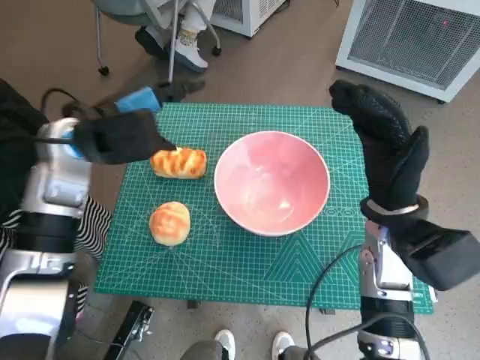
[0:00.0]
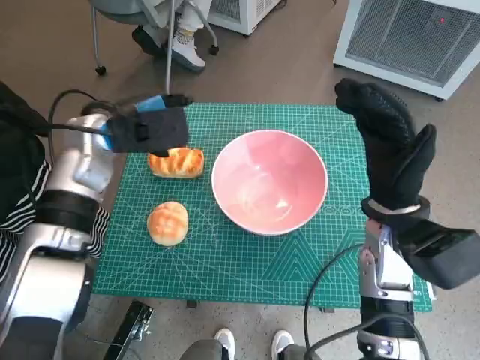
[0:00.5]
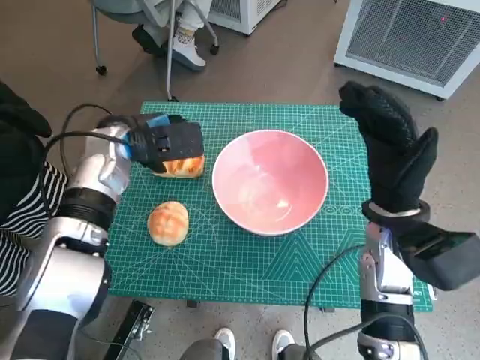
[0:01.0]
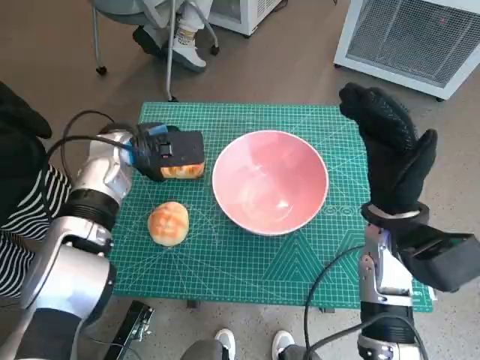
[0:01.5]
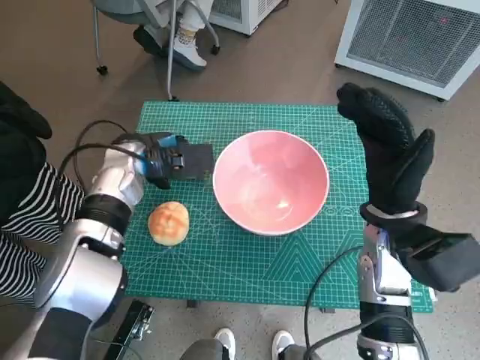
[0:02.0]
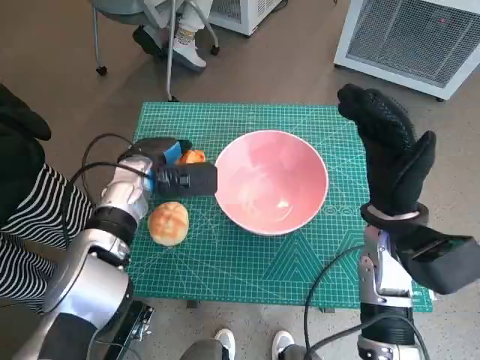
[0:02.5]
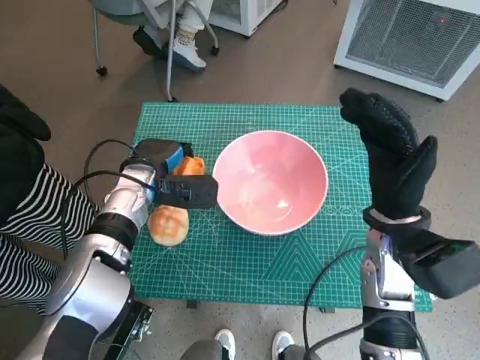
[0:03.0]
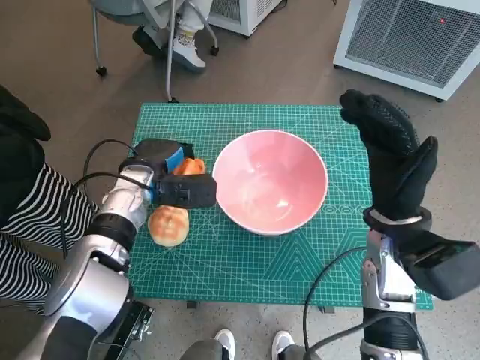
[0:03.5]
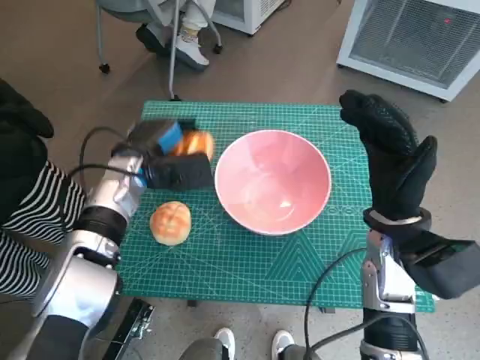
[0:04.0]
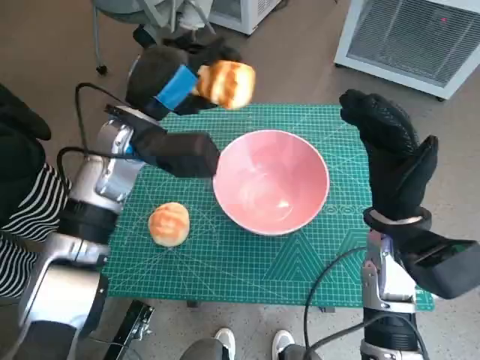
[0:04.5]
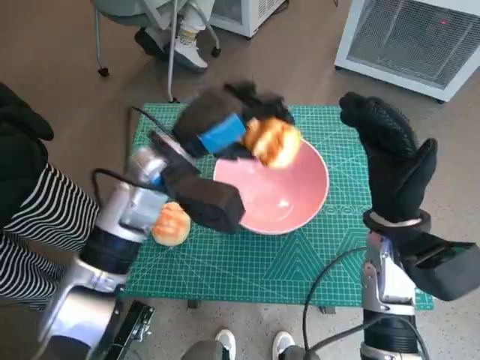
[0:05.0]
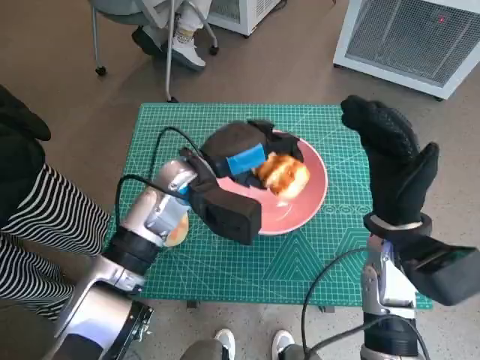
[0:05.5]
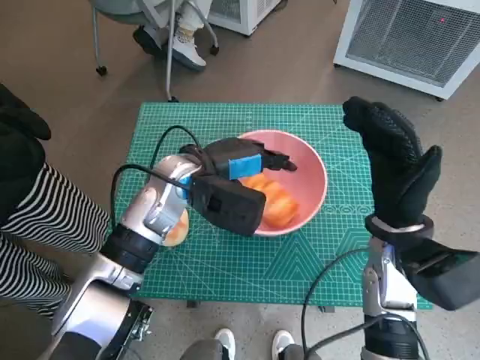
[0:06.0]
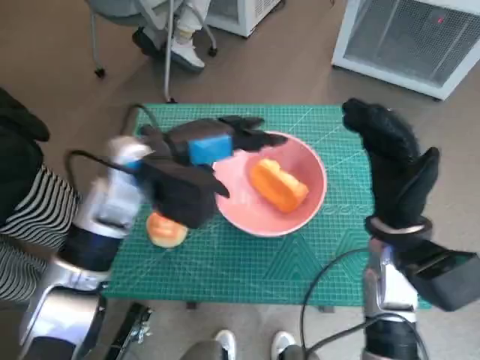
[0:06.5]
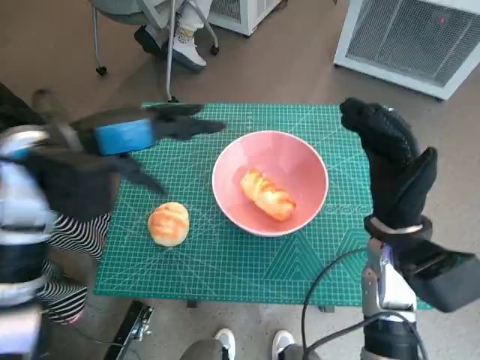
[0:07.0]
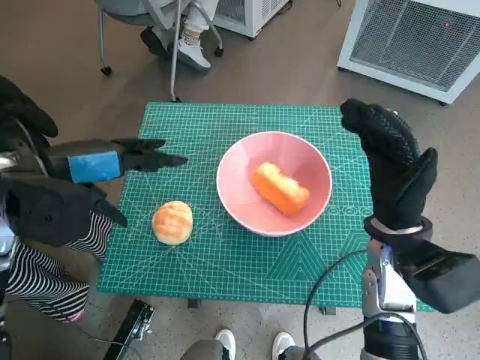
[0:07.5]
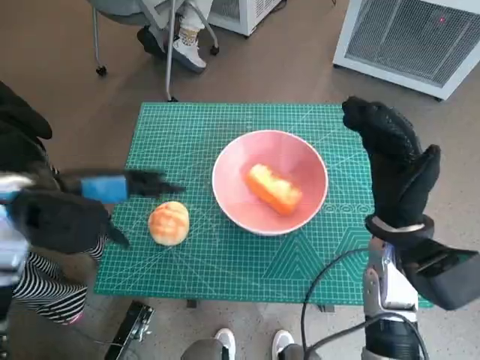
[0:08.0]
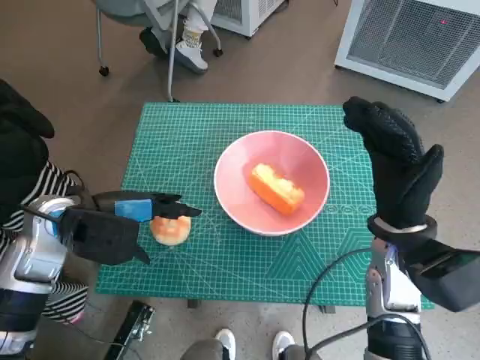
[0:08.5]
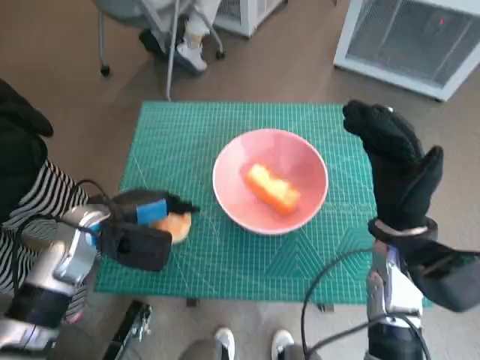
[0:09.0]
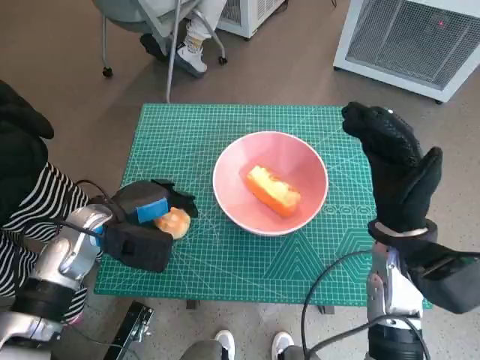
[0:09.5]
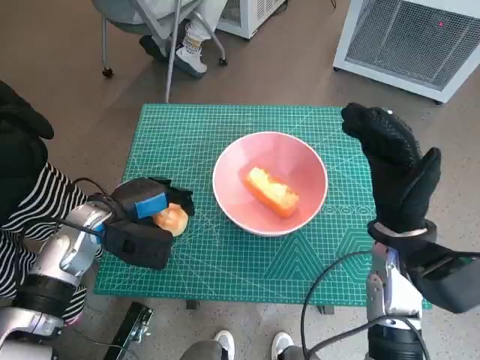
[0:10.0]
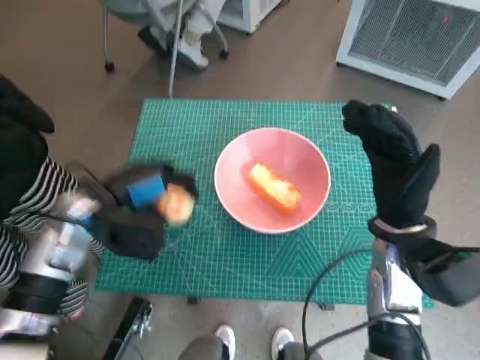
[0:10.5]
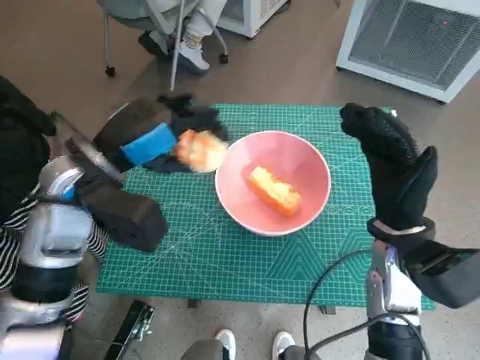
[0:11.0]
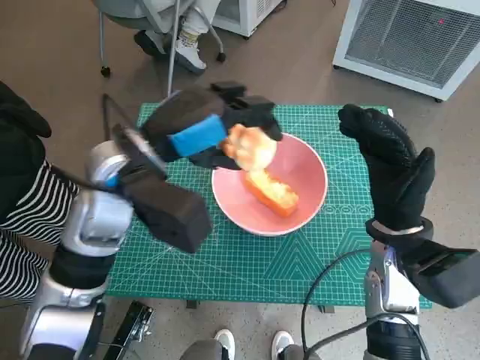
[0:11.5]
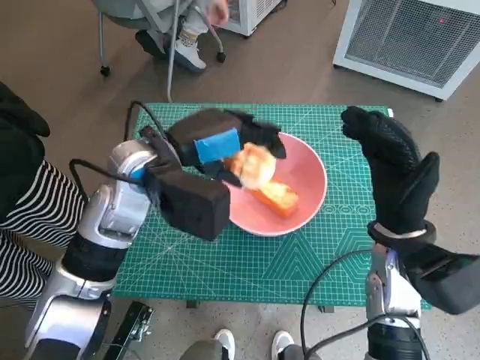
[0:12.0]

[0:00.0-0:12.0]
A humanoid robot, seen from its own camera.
Task of the whole recording: Push the bowl into the center of the table and put the bread into the bowl.
Step, 0:00.0 to 0:03.0: Grasp the long bread with left hand.
Step, 0:03.5 to 0:06.5: Place the long bread in pink bowl with left hand.
Step, 0:07.0 to 0:09.0: Grasp the round bread with left hand.
0:00.0 to 0:02.0: The left hand is displaced downward by approximately 10 cm.
0:04.0 to 0:06.0: The left hand travels to the right by about 10 cm.
0:06.0 to 0:08.0: The left hand heads to the left, backward and upward, covering approximately 20 cm.
0:08.0 to 0:10.0: The left hand is displaced downward by about 10 cm.
0:10.0 to 0:12.0: The left hand is displaced upward and to the right by some 15 cm.

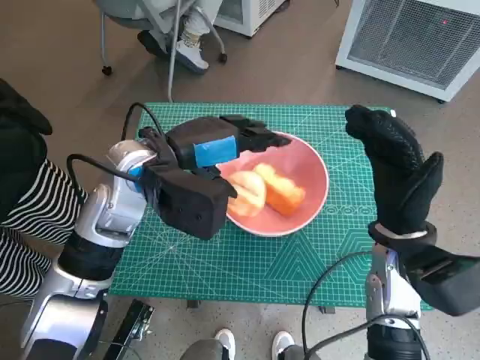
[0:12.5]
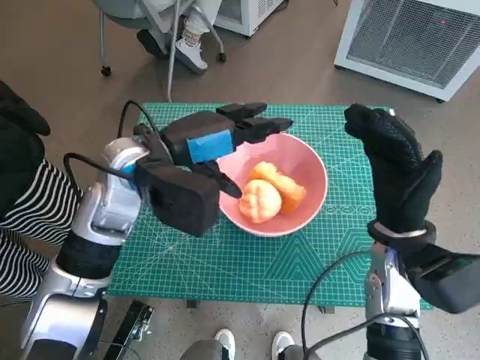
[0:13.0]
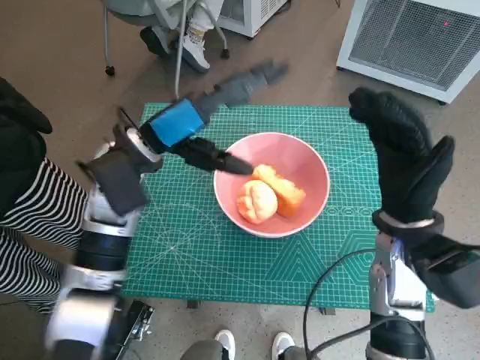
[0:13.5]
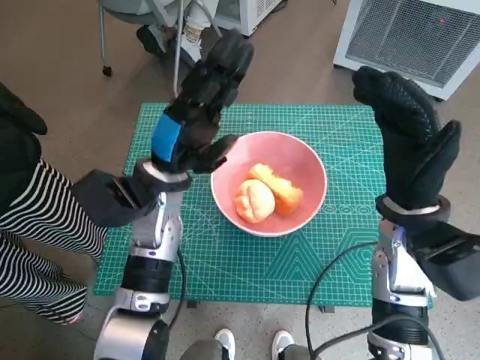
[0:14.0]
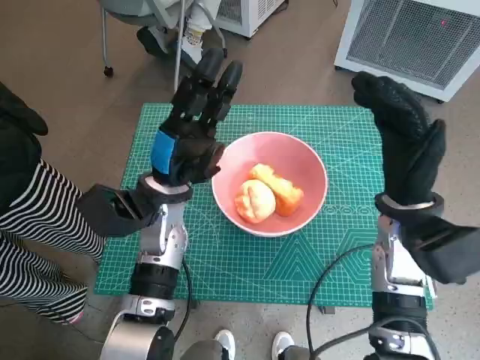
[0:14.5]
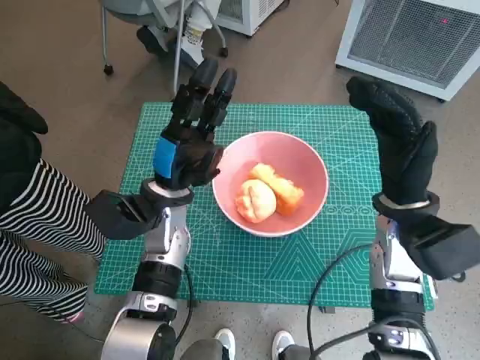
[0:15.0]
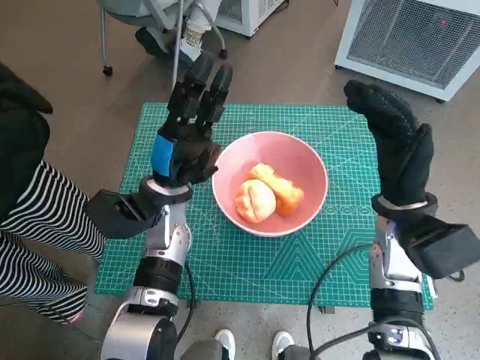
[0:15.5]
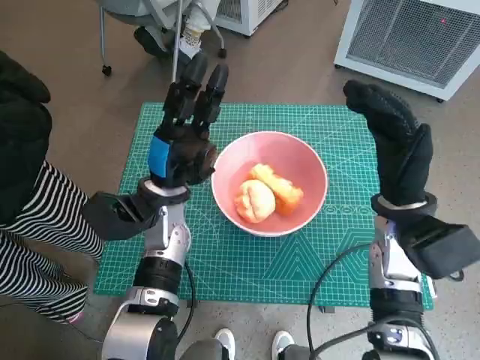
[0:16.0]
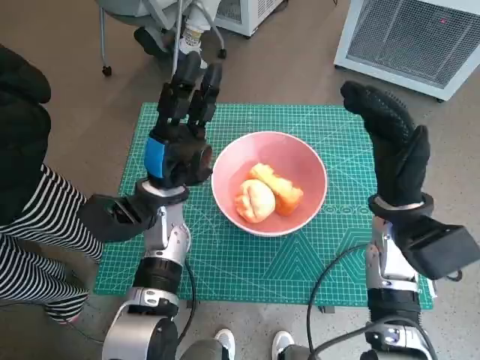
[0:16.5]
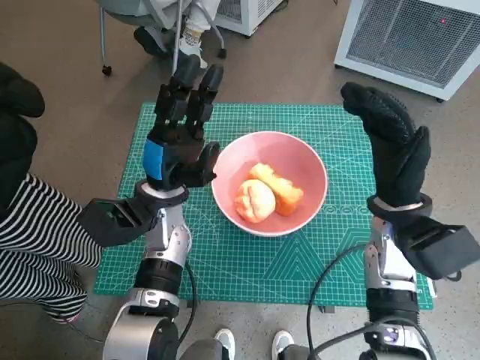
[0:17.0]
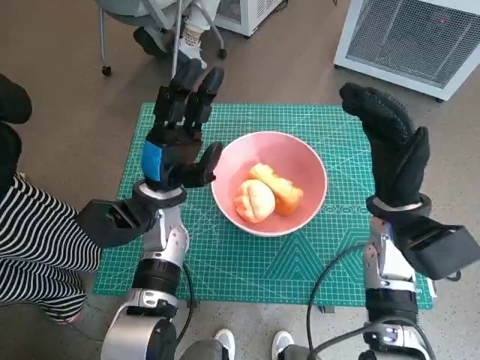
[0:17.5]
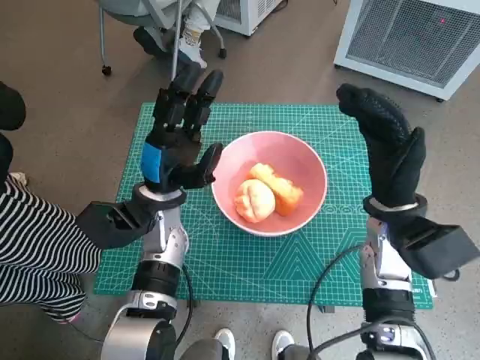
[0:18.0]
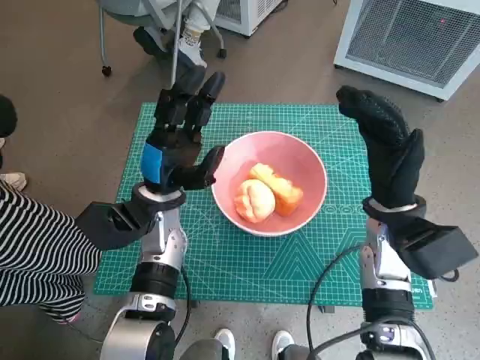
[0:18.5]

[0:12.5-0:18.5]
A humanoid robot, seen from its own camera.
Task of the whole recording: Push the bowl into the center of the table and put the bread into the bowl.
0:12.5 to 0:14.5: The left hand moves downward, roughly 10 cm.
0:14.5 to 0:16.5: The hands move only a little.
0:16.5 to 0:18.5: Both hands stay put.

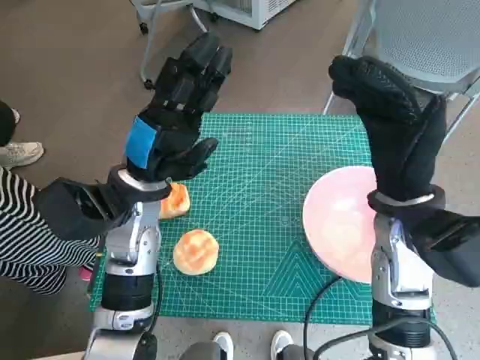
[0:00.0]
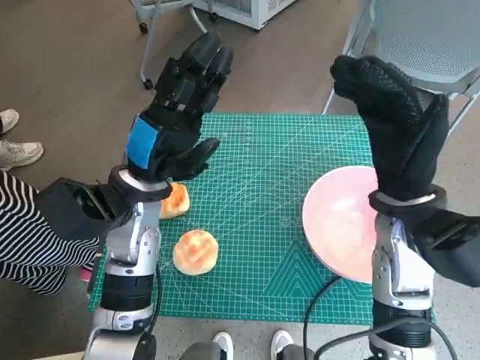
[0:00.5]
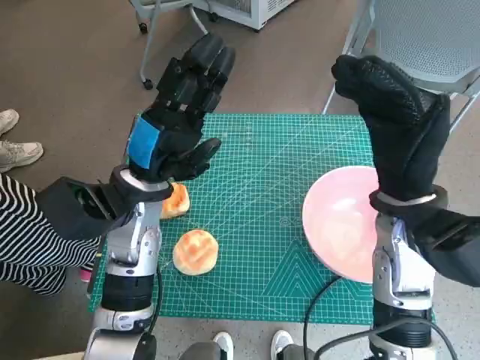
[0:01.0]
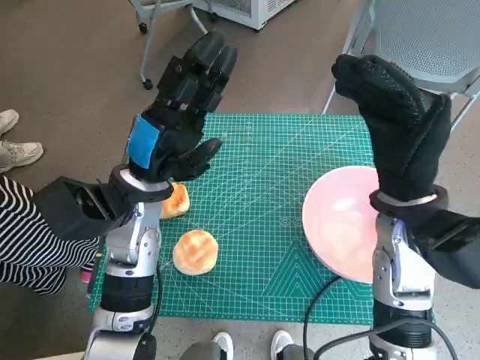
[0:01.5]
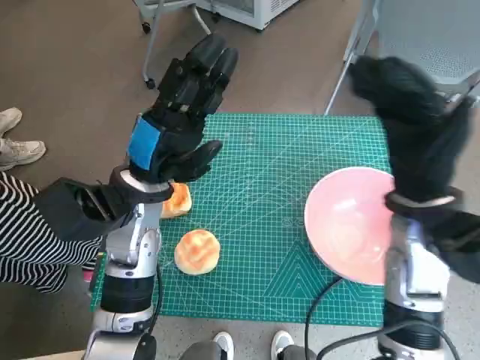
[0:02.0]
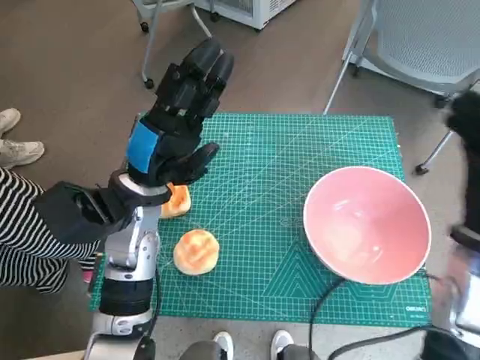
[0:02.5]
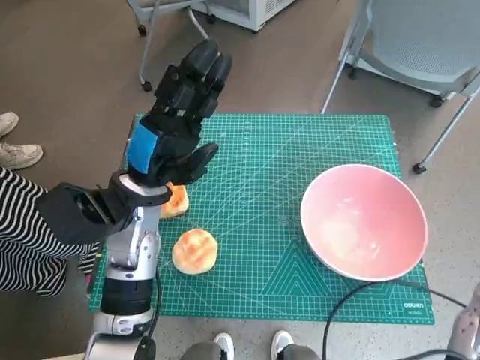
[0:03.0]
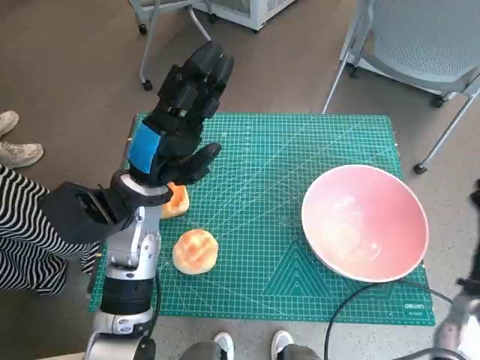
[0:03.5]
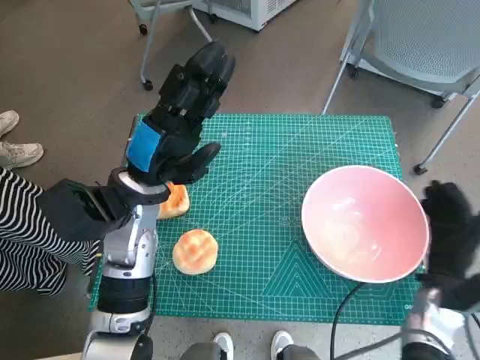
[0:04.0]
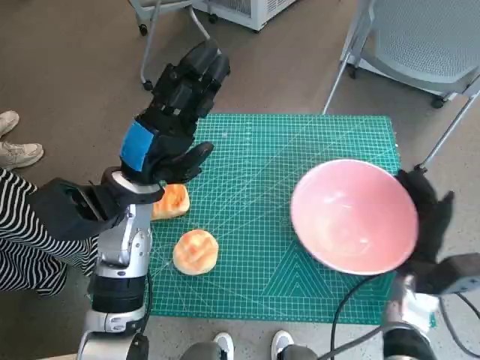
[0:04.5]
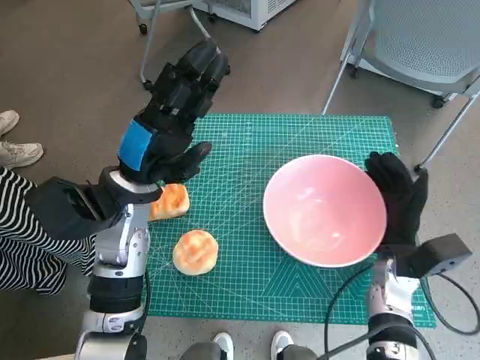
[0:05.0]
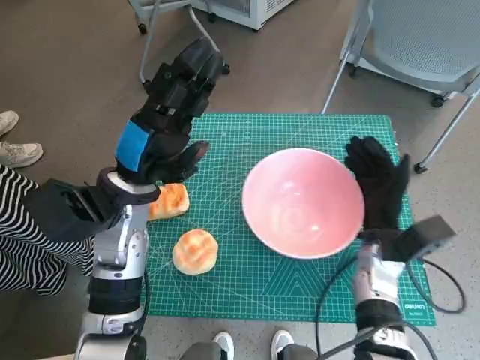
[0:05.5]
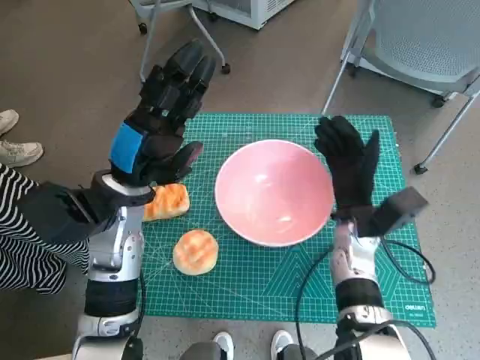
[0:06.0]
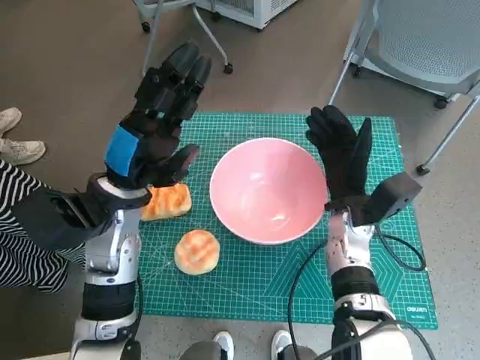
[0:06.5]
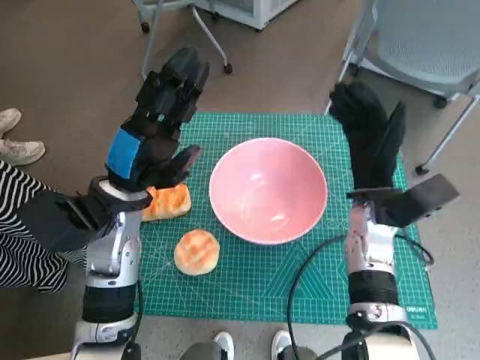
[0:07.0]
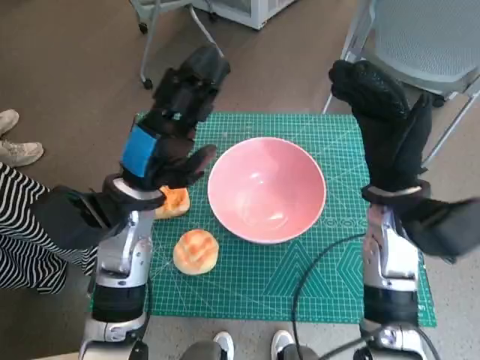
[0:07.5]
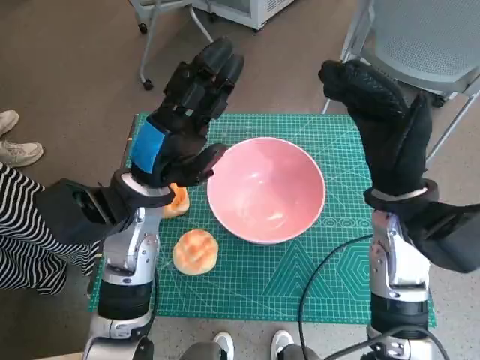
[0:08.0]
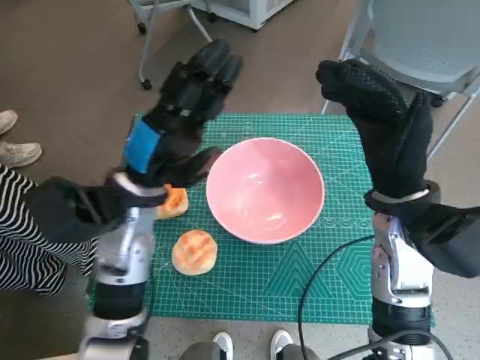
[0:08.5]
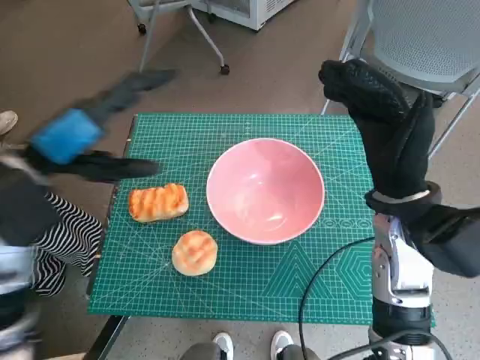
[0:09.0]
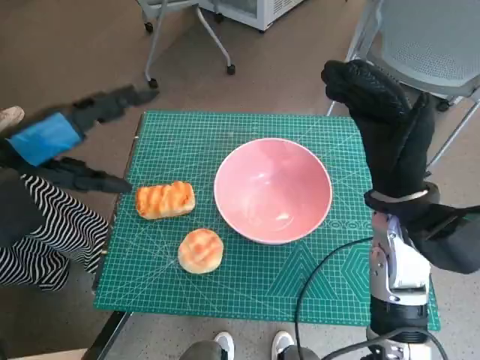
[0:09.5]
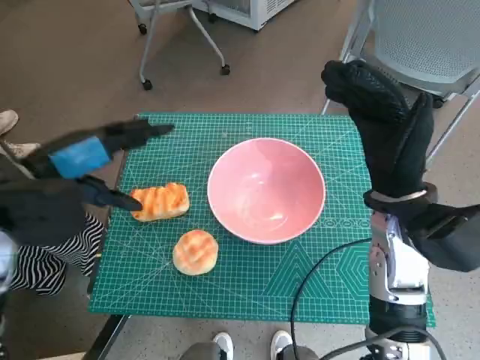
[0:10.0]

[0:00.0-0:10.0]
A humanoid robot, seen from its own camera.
Task of the whole recording: Push the bowl into the center of the table and put the bread into the bowl.
Step, 0:00.0 to 0:06.5: Move the pink bowl to the center of table with right hand.
0:02.0 to 0:04.0: The right hand shifts some 20 cm downward and to the right.
0:04.0 to 0:06.0: The right hand goes roughly 15 cm to the left and forward.
0:06.0 to 0:08.0: The right hand goes approximately 10 cm upward.
0:08.0 to 0:10.0: The left hand shifts about 15 cm to the left and upward.
